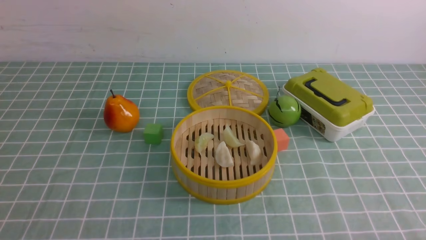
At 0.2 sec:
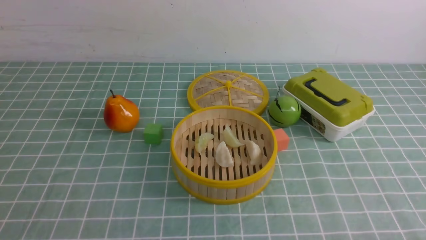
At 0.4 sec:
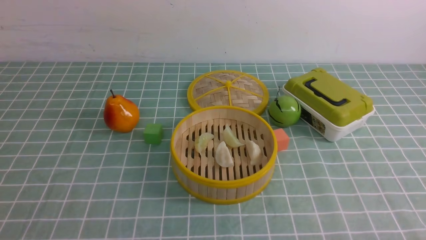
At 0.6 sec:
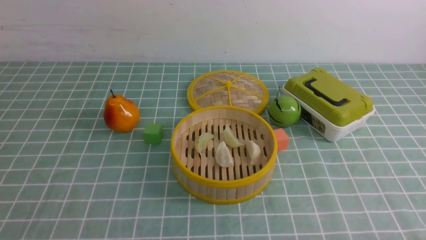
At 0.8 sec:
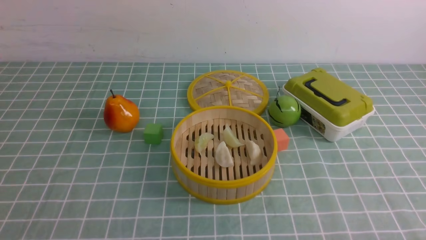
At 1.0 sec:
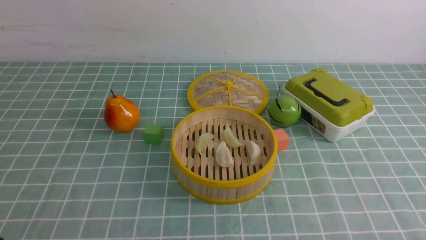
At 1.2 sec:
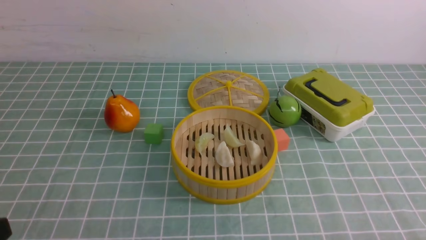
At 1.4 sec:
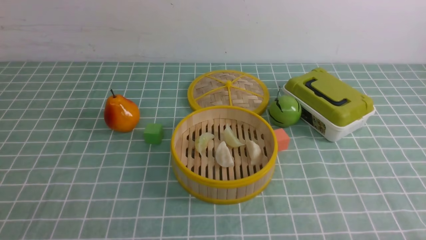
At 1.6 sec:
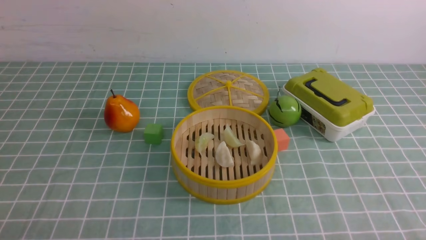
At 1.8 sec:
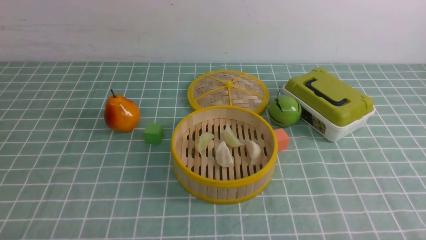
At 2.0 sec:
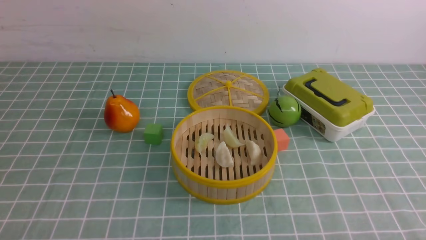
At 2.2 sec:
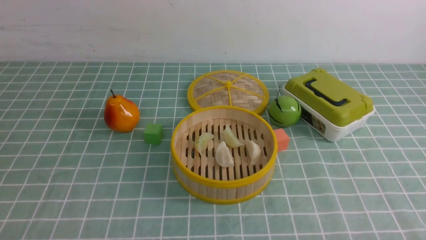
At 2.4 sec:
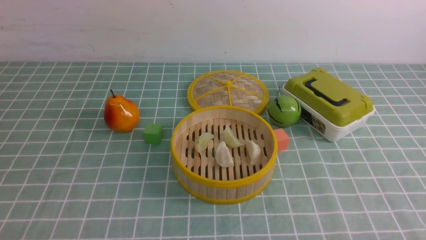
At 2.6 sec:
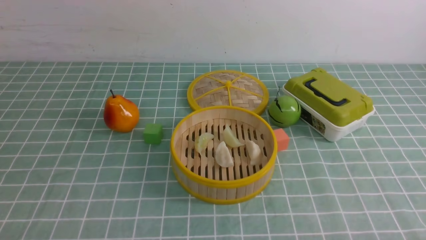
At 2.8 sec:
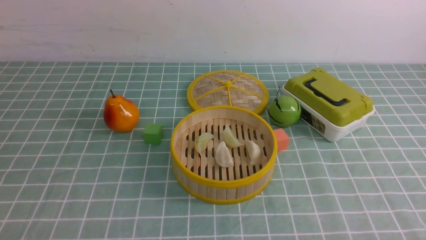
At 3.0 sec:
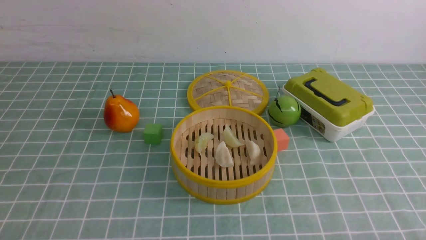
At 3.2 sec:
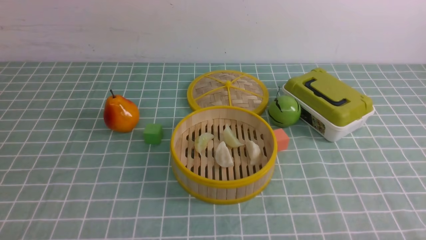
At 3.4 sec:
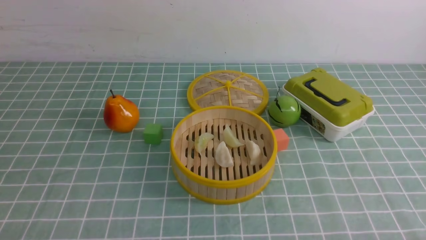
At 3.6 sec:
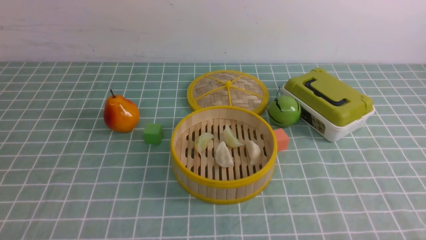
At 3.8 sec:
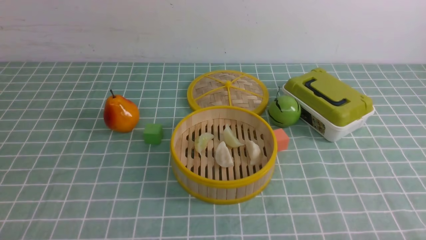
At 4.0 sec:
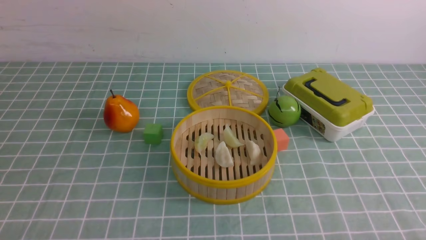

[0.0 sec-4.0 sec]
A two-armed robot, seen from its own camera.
Task of the whole recording: put the dumplings into the steamer on the table with the blue tablecloth.
2.6 sec to 4.0 sec: Both grippers stay about where they are.

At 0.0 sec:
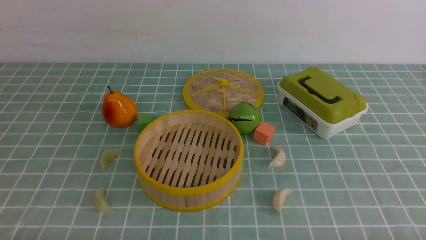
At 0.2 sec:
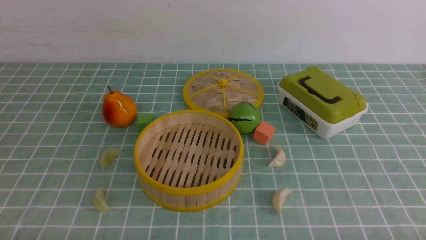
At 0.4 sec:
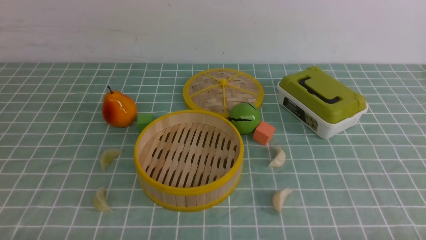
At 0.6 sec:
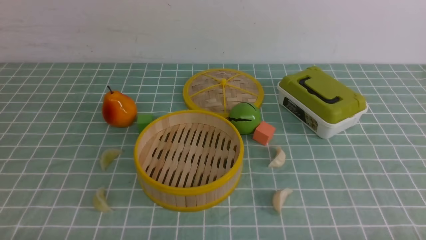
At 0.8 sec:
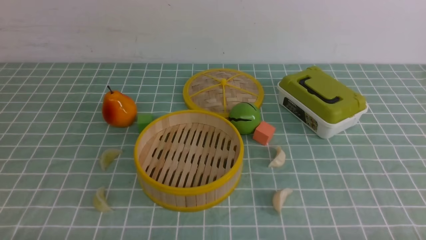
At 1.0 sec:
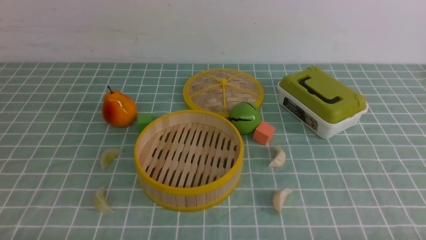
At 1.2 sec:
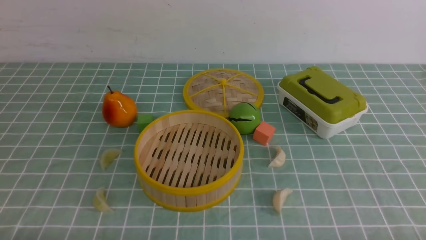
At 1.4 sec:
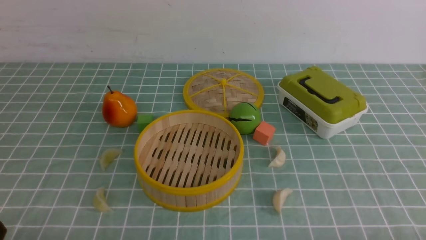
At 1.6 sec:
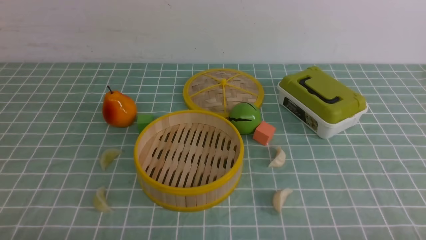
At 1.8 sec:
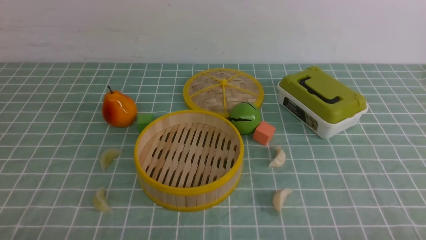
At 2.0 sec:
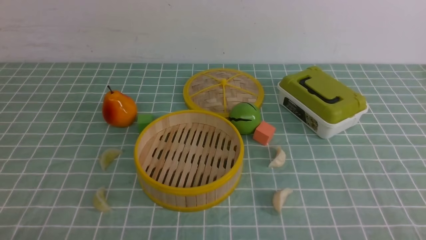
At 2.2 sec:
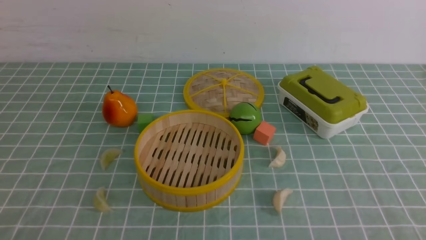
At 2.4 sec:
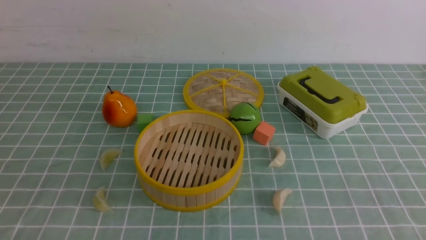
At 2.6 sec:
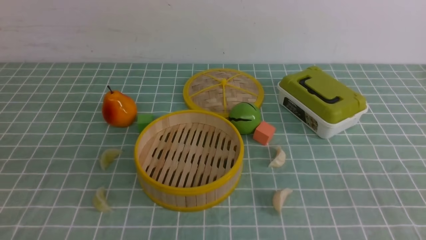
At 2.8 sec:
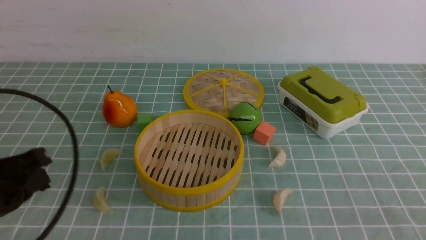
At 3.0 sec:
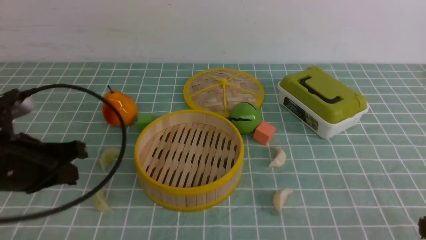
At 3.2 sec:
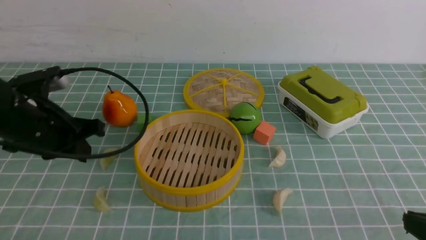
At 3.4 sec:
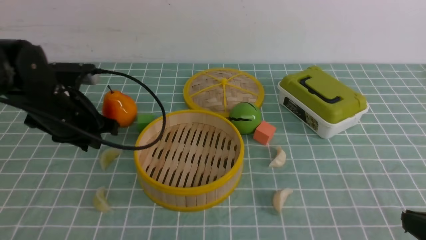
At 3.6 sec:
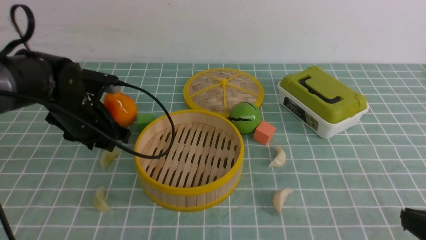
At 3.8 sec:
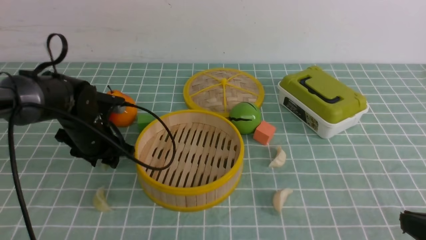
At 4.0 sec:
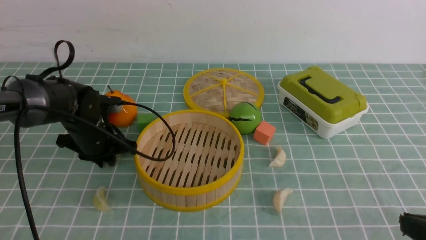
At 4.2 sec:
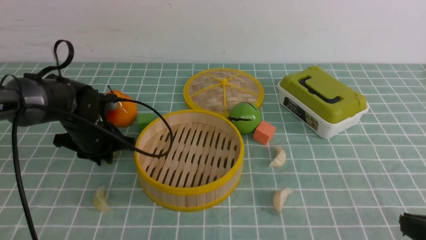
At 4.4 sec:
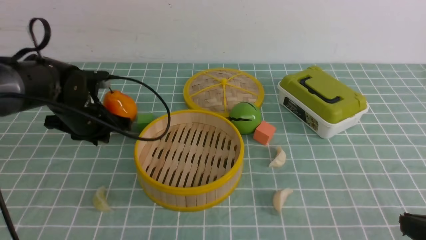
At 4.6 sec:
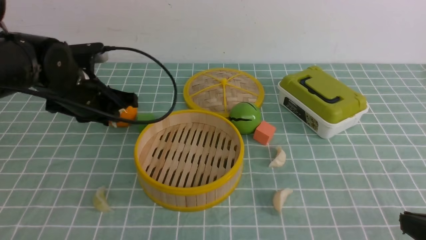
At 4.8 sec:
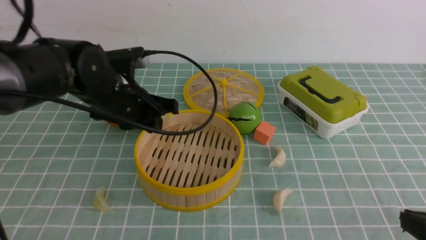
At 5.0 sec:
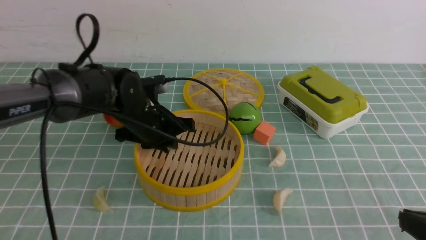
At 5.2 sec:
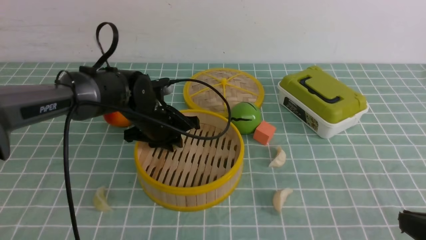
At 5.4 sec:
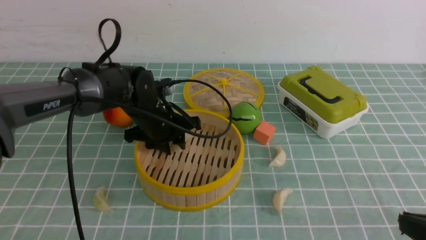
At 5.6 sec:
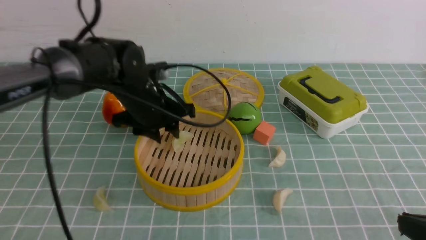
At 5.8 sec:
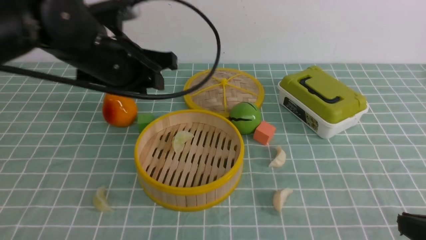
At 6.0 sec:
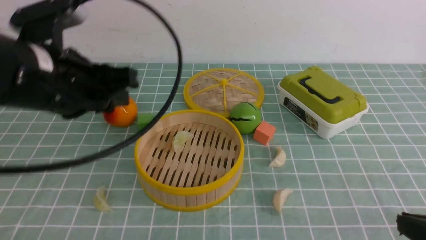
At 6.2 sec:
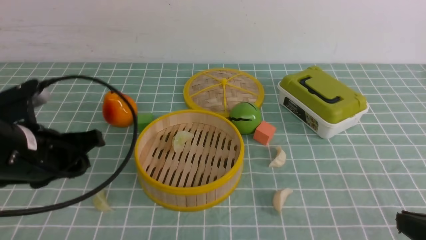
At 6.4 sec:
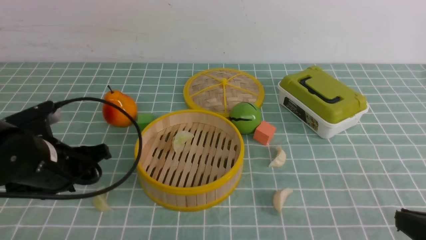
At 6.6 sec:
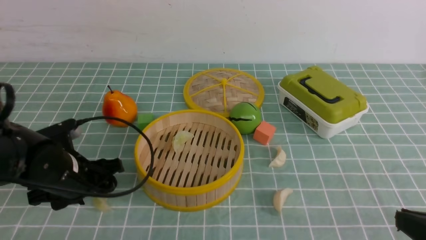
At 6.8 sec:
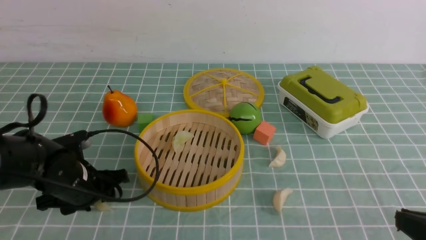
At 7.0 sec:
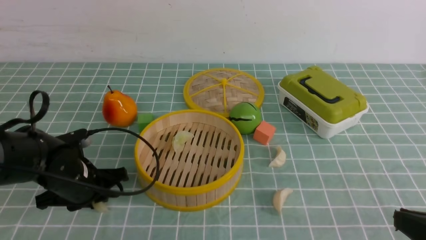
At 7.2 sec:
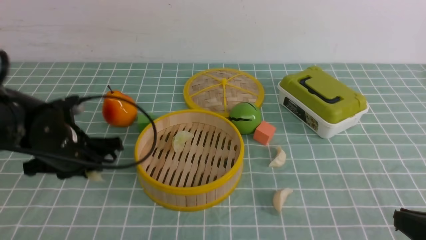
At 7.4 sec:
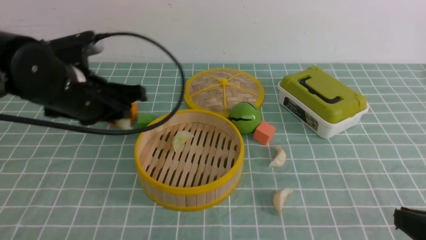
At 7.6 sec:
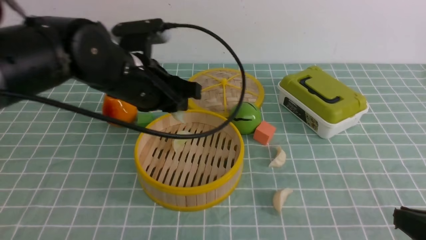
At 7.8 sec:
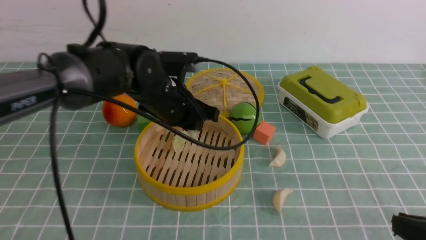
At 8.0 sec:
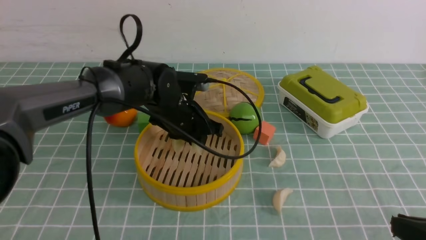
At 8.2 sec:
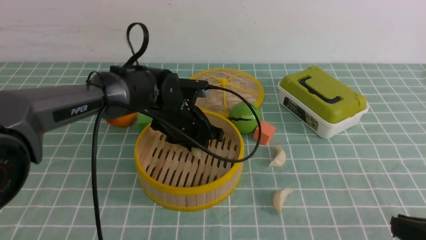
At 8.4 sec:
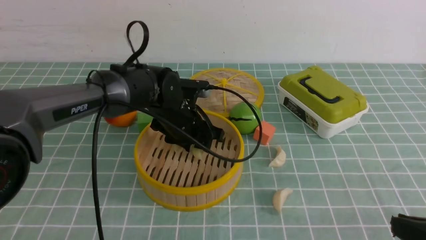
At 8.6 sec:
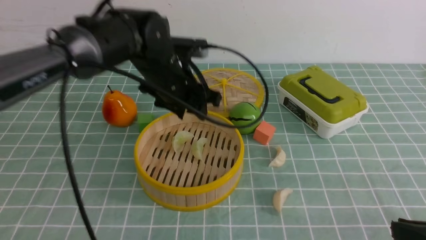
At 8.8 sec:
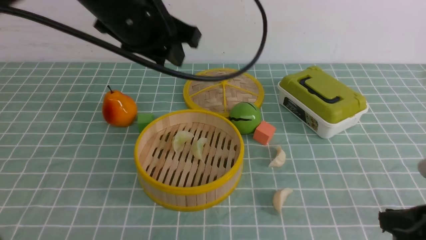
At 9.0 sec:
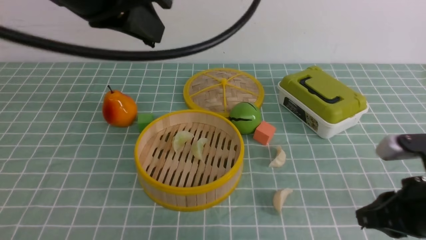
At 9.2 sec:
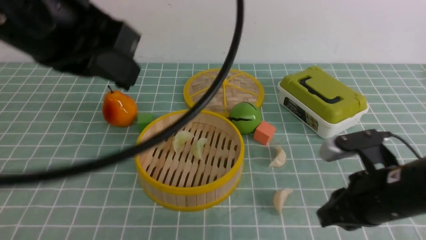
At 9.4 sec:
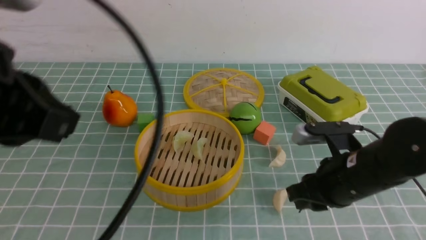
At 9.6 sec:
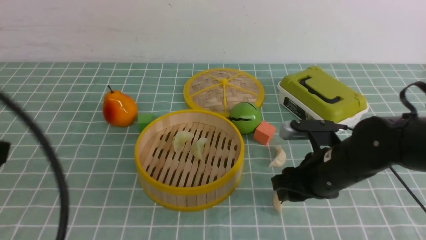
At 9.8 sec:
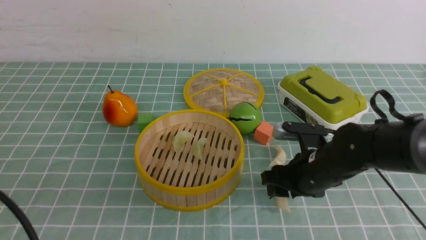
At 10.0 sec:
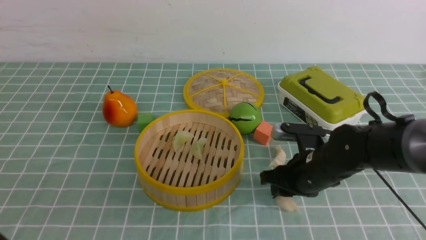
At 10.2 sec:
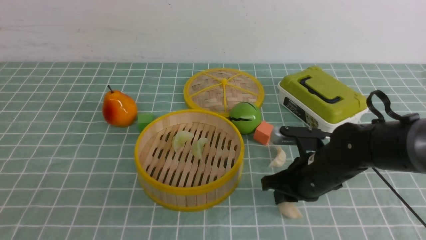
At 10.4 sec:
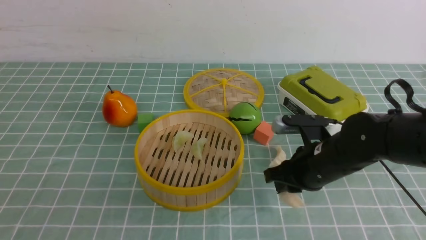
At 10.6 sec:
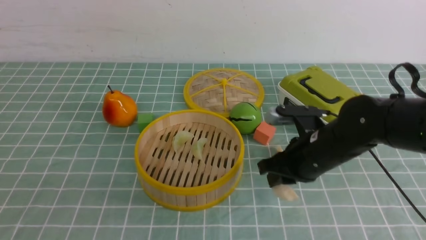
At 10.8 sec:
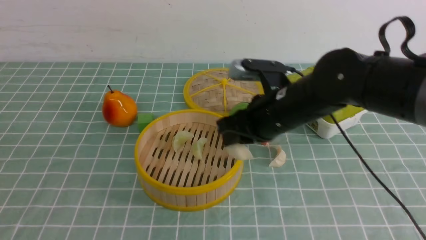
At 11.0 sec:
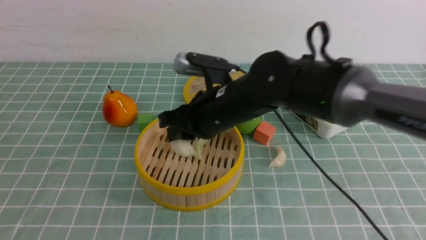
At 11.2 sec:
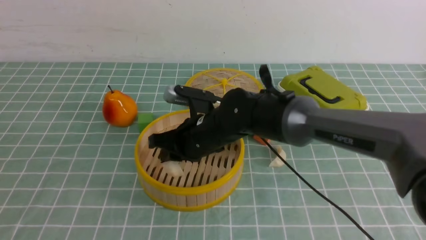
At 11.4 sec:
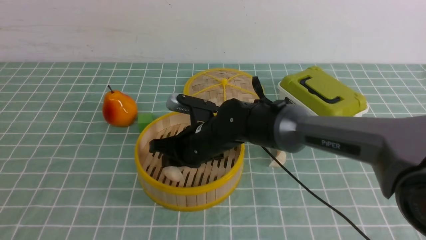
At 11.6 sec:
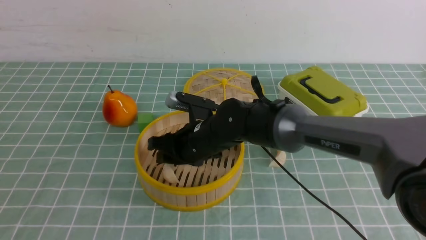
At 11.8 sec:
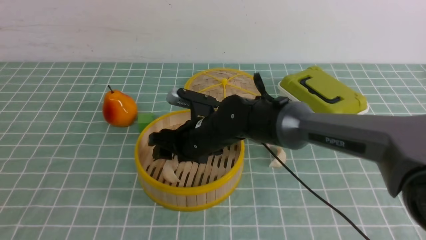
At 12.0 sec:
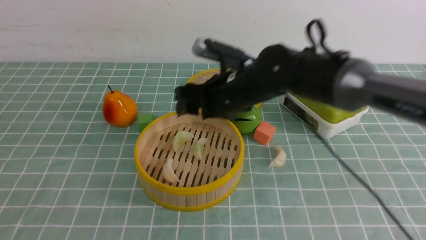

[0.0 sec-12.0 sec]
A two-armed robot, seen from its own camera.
Task of the whole recording: put the dumplings into the steamer on the table with the blue tablecloth.
Step, 0.0 sec to 4.4 sec: use the left arm to grab a dumpling.
Step, 4.6 sec to 5.6 sec: use the left arm to put the dumpling into the steamer.
Step, 5.8 sec to 7.2 sec: use the left arm to grab a dumpling.
Step, 7.4 sec to 8.6 sec: use the left arm to put the dumpling into the steamer.
Step, 8.8 sec to 10.6 sec: use the right arm to grab a dumpling.
Step, 10.8 sec to 11.8 sec: use the right arm to put the dumpling into the steamer.
1.6 sec to 3.0 sec: The left gripper travels forward by about 20 cm, and closes its fingers.
3.0 sec to 4.4 sec: The left gripper heads forward, covering about 15 cm, and opens up.
4.4 sec to 6.0 sec: The left gripper shifts approximately 15 cm backward and upward.
6.0 sec to 7.6 sec: The left gripper shifts roughly 10 cm forward and to the right, and travels downward and back again, some 15 cm each way.
7.6 sec to 9.0 sec: The right gripper heads forward, covering roughly 5 cm. The left gripper moves upward and backward, approximately 20 cm, and opens and closes again.
9.0 sec to 10.4 sec: The right gripper goes approximately 15 cm forward, to the left and downward, and opens, then closes once more, while the left gripper heads backward, downward and to the left, covering roughly 30 cm.
10.4 sec to 12.0 sec: The right gripper goes approximately 15 cm to the left, upward and forward, and opens its fingers.
